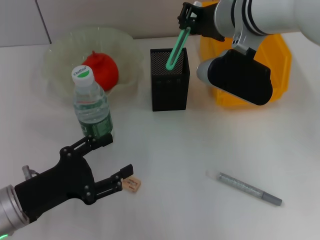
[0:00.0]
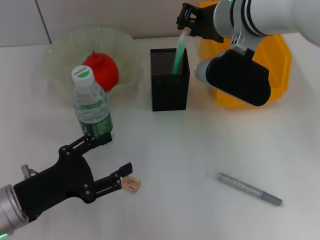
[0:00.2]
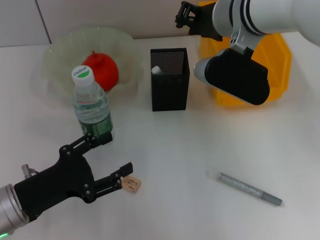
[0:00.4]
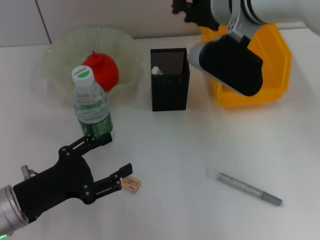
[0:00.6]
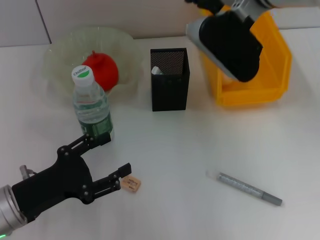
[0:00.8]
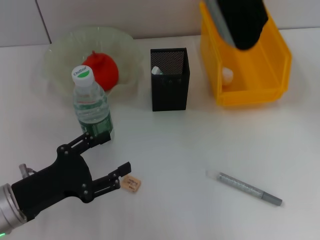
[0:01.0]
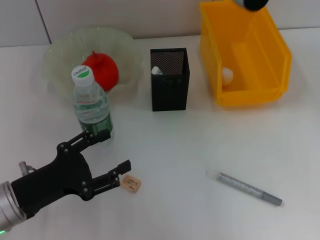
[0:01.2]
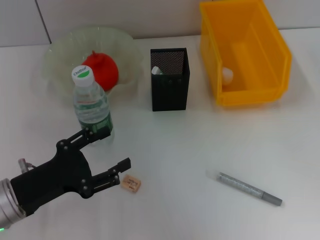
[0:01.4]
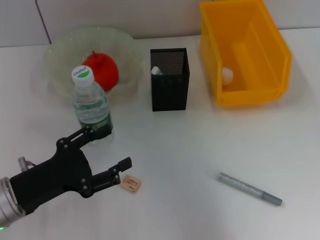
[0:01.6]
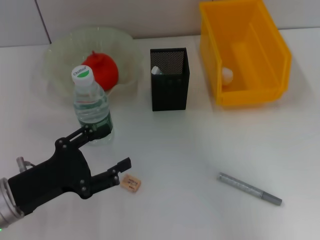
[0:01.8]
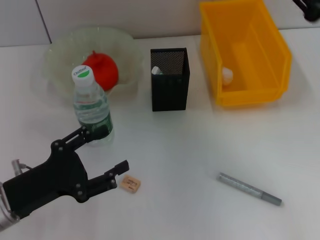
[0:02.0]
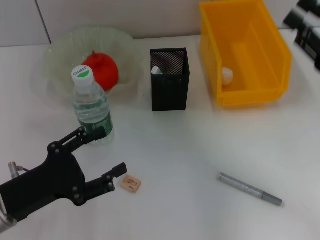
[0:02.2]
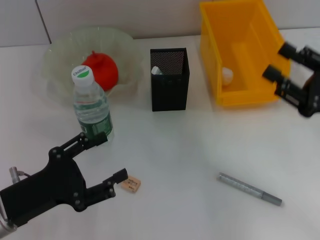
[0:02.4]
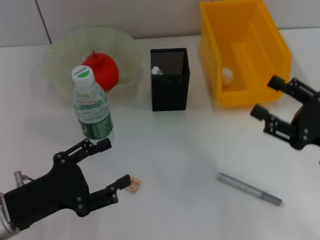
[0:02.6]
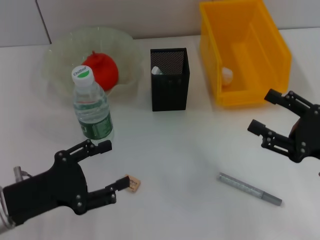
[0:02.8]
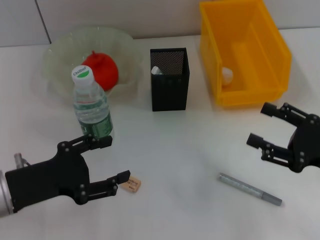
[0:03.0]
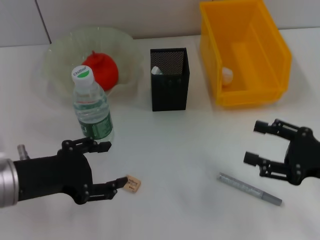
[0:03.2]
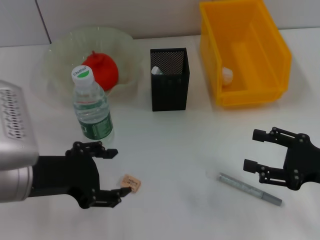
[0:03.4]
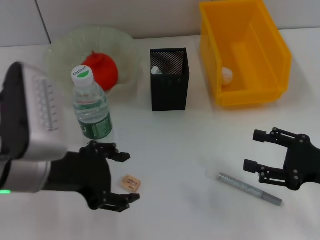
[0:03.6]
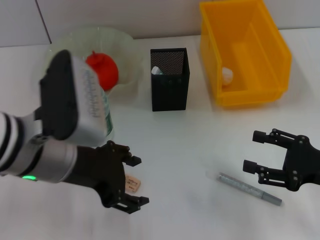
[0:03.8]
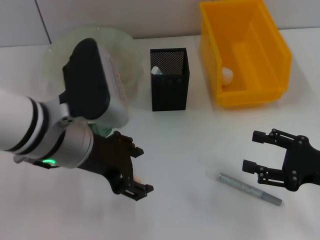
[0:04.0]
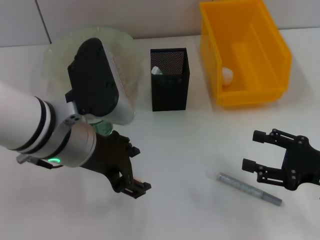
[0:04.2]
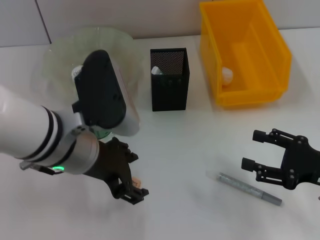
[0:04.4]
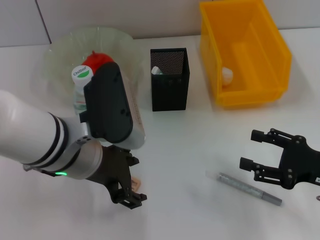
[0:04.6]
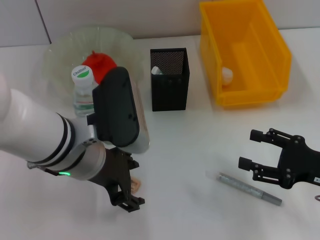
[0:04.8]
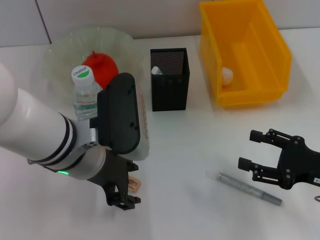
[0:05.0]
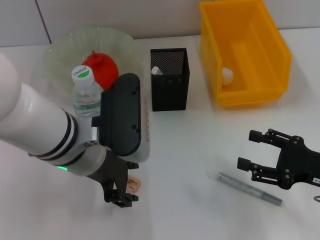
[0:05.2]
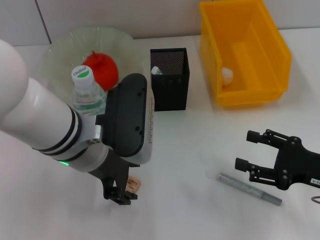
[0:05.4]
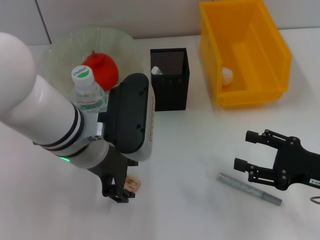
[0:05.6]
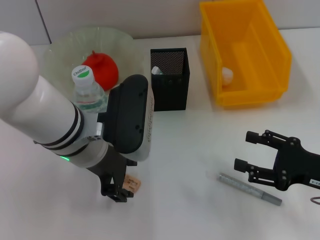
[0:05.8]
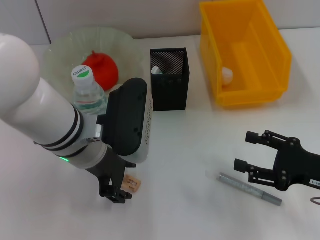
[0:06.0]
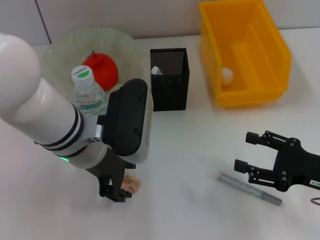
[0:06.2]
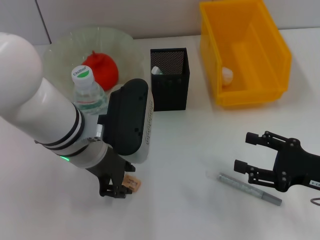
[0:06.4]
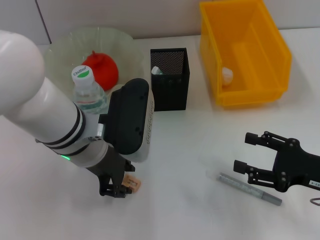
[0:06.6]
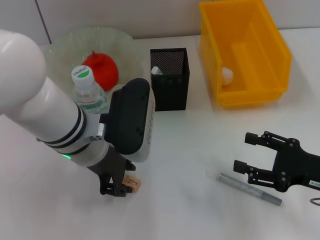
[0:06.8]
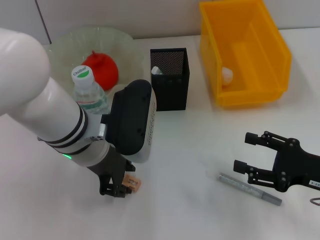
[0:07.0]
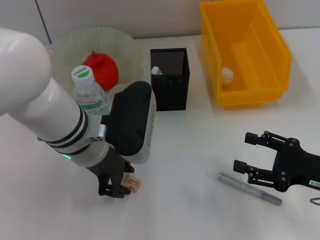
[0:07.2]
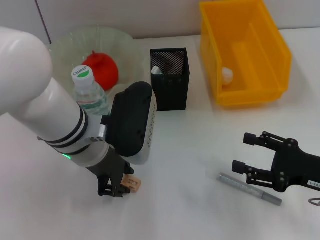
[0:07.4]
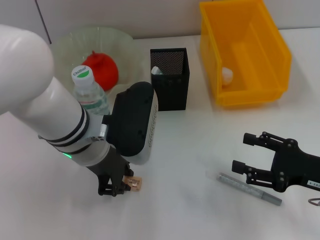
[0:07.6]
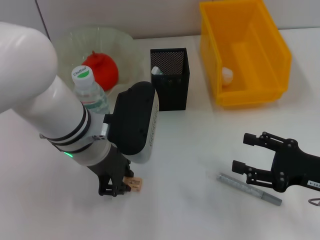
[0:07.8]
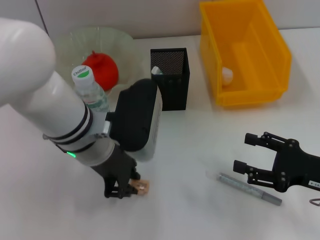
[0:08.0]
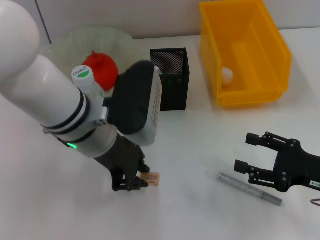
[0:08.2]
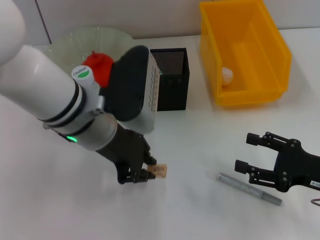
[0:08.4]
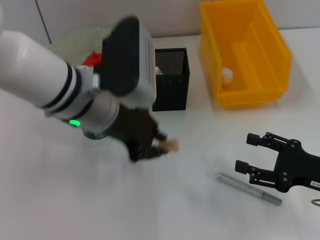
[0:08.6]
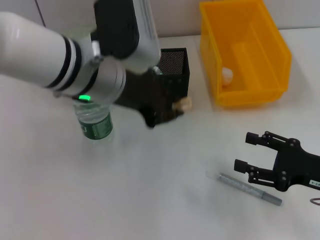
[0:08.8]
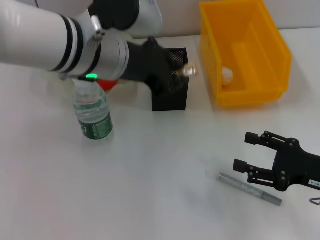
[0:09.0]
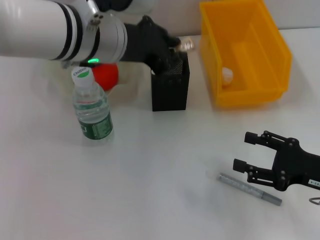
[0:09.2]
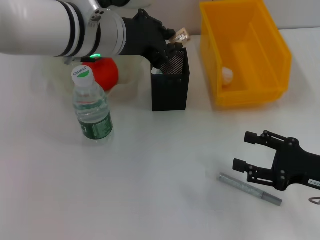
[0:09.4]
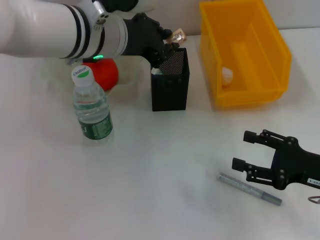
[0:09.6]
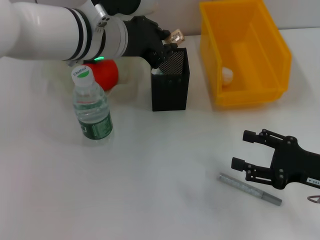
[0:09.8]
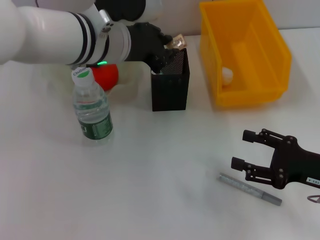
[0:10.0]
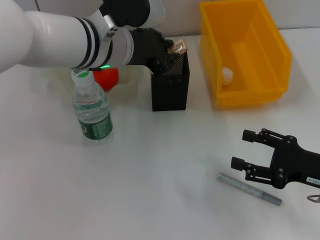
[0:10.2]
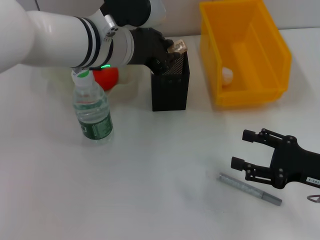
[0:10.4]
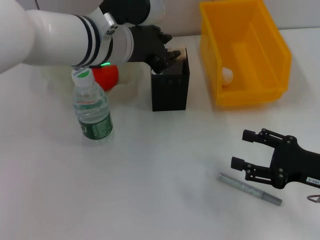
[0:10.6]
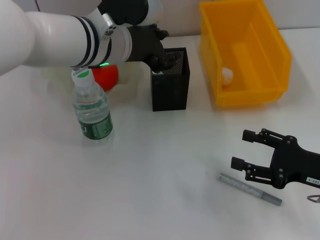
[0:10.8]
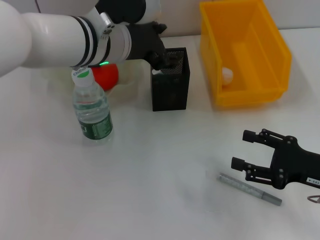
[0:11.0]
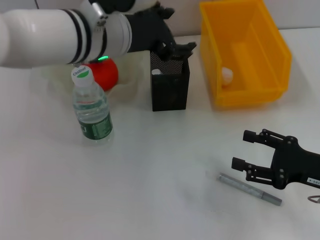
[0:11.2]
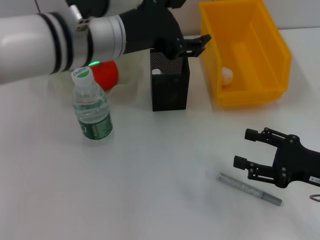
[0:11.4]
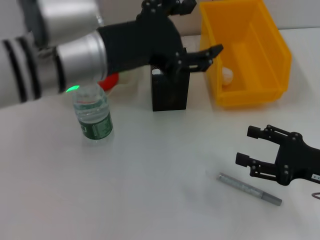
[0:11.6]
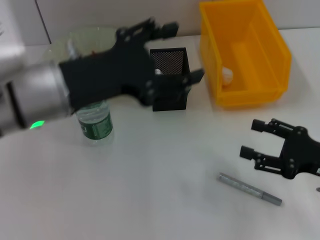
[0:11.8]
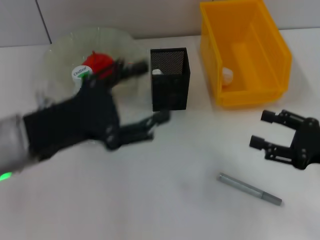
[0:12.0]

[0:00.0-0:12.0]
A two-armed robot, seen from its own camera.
Step, 0:00.6 to 0:07.6: Grab the eraser with the left hand.
Step, 0:07.8 to 0:10.8: Place the eraser into the pen holder with the left hand.
0:00.0 to 0:01.6: The right gripper goes approximately 15 cm to the right and upward.
0:01.6 to 0:03.0: The right gripper goes some 30 cm downward and backward, and opens.
0:03.0 to 0:04.4: The left gripper shifts roughly 15 cm to the right, upward and forward.
0:06.0 to 0:07.6: The left gripper closes.
0:07.6 to 0:09.0: The left gripper is displaced upward by approximately 10 cm.
0:09.0 to 0:10.4: The grippers make only small movements.
0:10.4 to 0:12.0: The left gripper heads backward and to the left, covering approximately 20 cm, and opens its fingers.

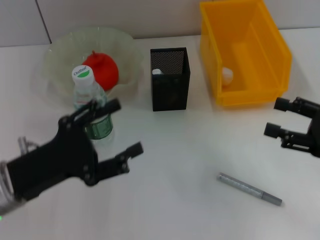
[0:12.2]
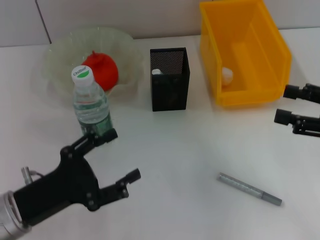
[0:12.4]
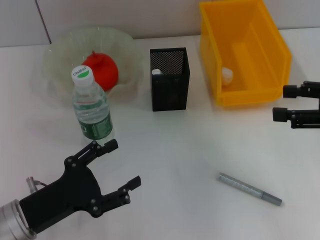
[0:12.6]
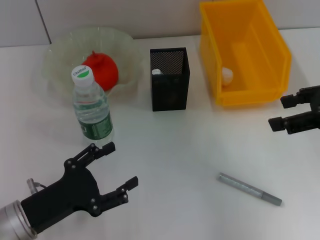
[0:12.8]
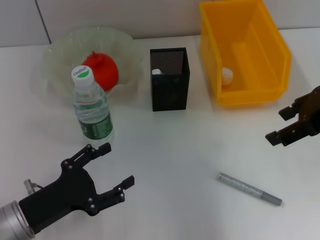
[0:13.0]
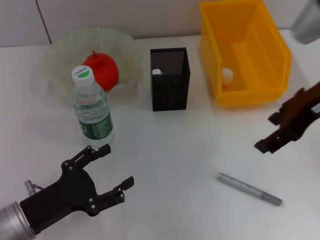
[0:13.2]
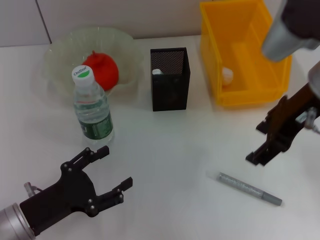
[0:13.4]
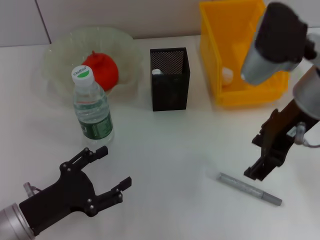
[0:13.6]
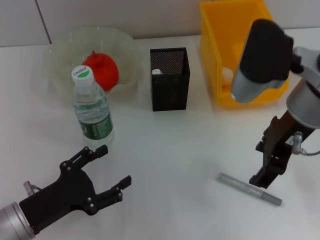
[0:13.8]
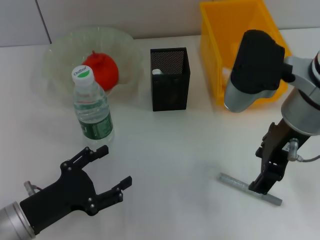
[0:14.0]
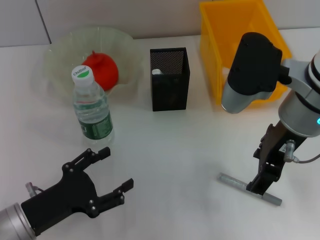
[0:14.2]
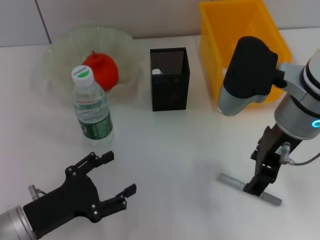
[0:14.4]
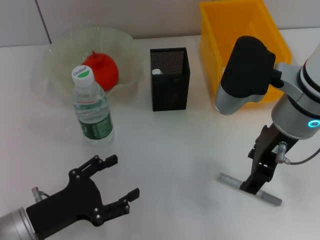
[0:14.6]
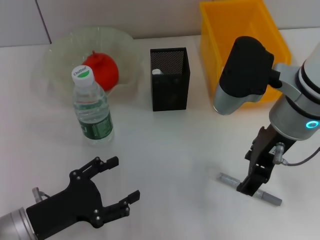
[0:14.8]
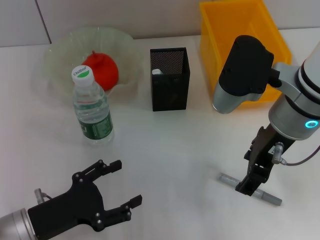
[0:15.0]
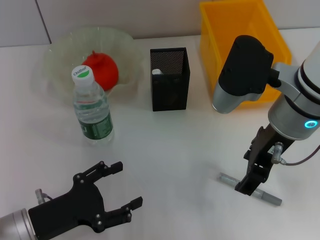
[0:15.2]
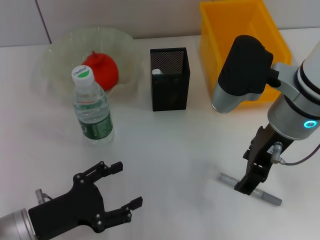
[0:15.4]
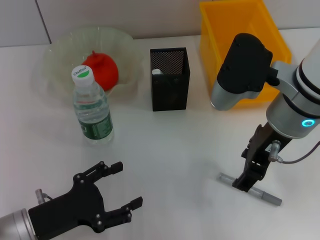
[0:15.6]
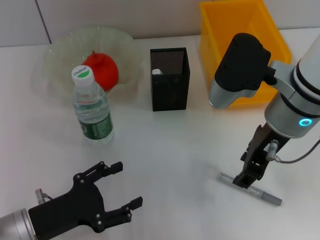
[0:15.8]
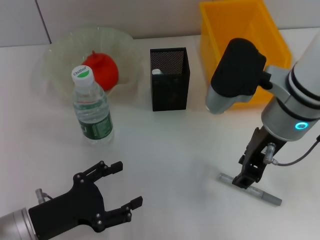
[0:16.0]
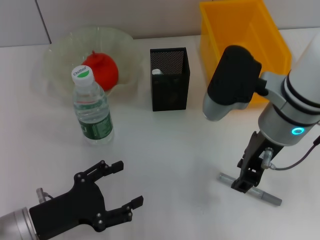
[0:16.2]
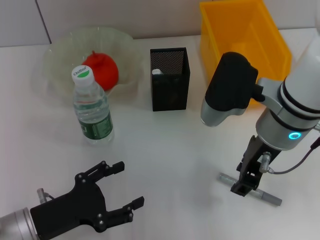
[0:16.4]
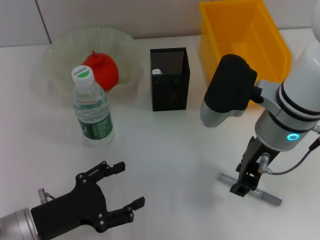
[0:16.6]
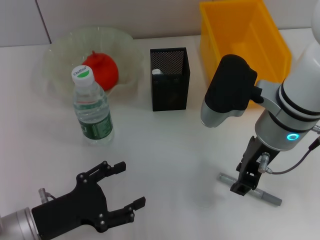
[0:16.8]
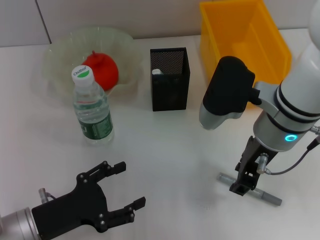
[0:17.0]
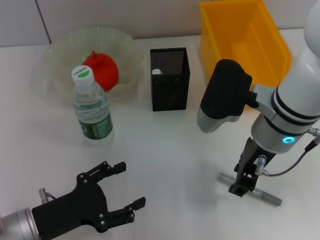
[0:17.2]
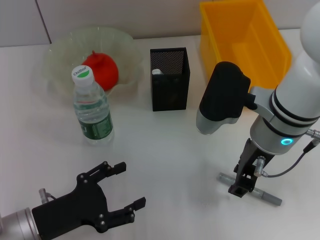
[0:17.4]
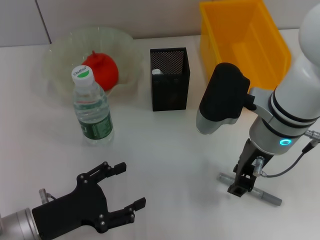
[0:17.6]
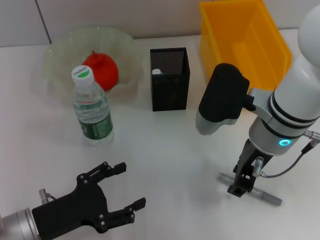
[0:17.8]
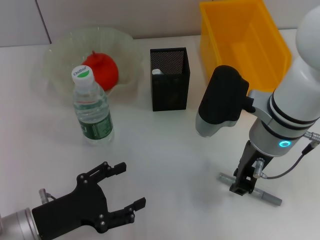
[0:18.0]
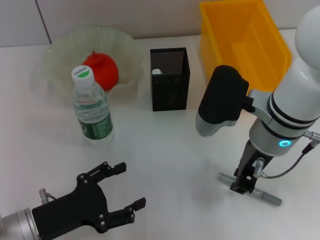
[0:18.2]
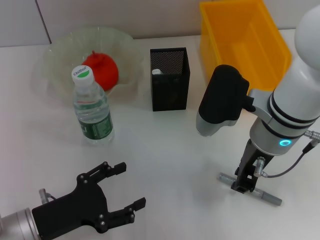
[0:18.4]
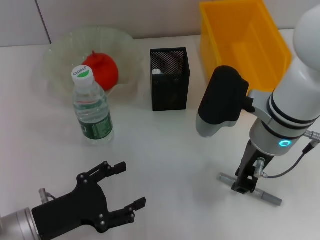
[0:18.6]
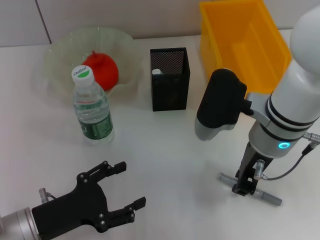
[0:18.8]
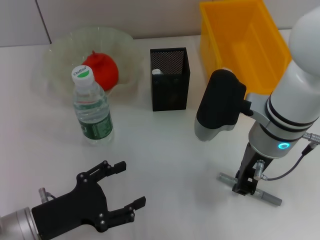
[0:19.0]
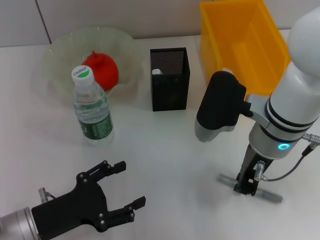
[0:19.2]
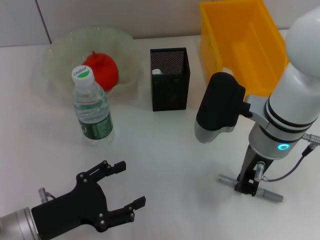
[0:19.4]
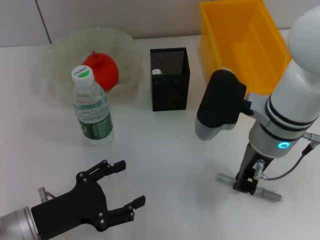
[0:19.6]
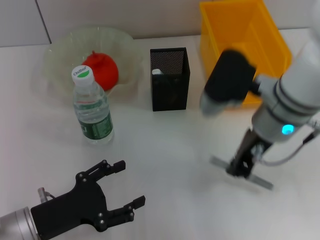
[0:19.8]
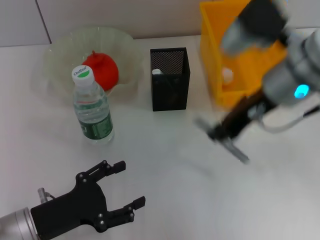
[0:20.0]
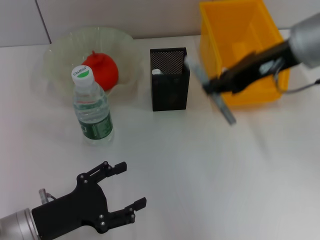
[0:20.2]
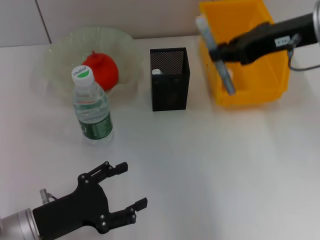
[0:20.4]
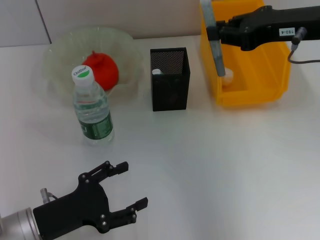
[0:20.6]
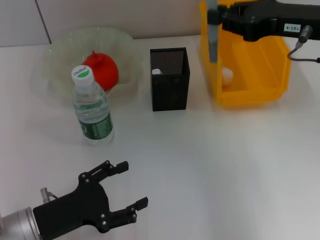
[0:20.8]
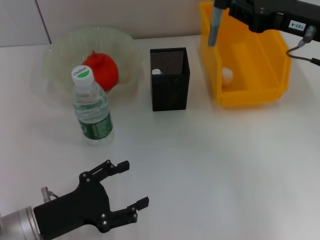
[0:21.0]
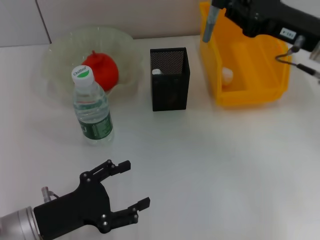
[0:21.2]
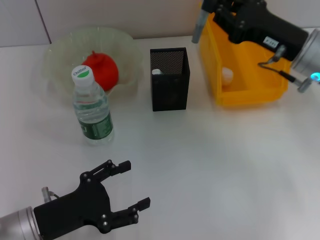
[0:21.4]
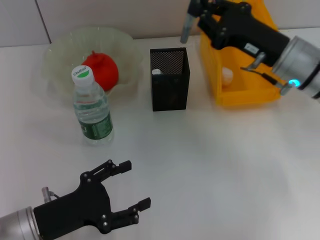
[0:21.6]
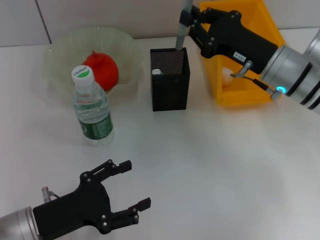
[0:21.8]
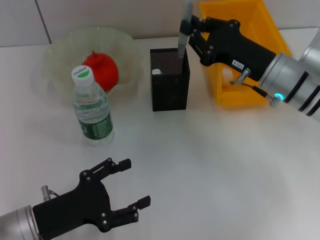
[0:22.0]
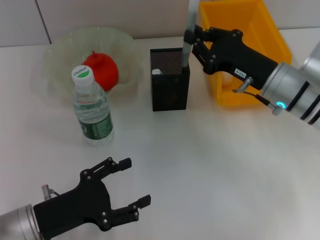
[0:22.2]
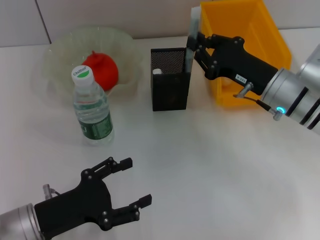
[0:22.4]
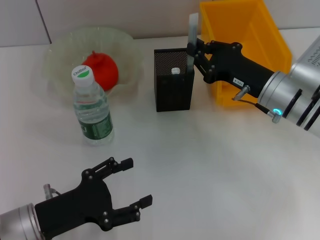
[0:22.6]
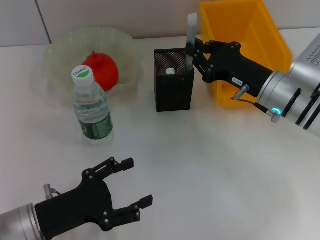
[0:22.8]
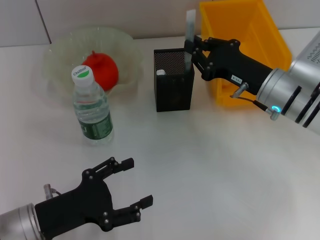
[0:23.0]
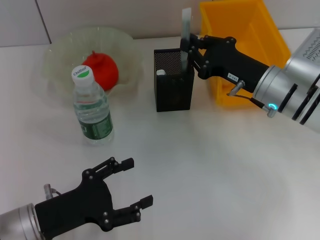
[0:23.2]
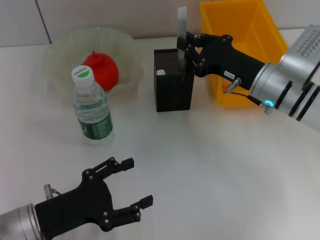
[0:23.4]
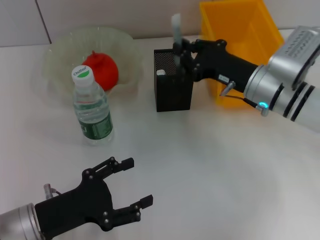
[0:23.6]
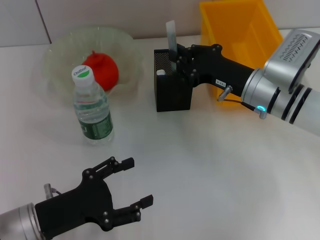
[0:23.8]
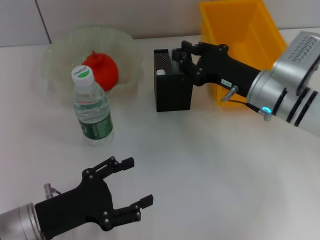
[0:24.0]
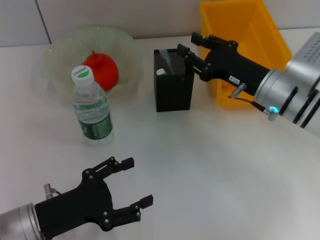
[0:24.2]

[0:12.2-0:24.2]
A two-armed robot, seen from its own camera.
Step, 0:12.2 to 0:19.2: Grab the gray glue with the right hand.
Step, 0:19.4 to 0:24.0: Place the gray glue into the pen holder with the right hand.
0:12.2 to 0:13.8: The left gripper moves downward, approximately 5 cm. Meanwhile the right gripper travels to the left, upward and forward by some 20 cm.
0:13.8 to 0:15.2: The grippers stay close to where they were, moving slightly.
0:15.2 to 0:16.6: The right gripper closes up.
0:16.6 to 0:19.8: The grippers stay close to where they were, moving slightly.
0:19.8 to 0:21.2: The right gripper goes about 10 cm to the right.
0:21.2 to 0:22.6: The right gripper heads downward, covering roughly 10 cm.
0:22.6 to 0:24.2: There are only small adjustments of the grippers.
